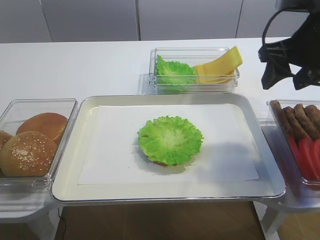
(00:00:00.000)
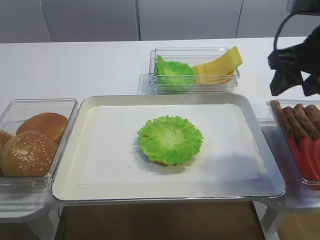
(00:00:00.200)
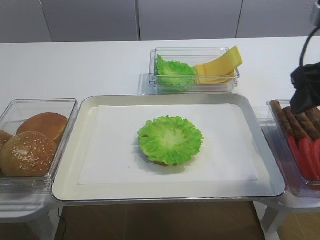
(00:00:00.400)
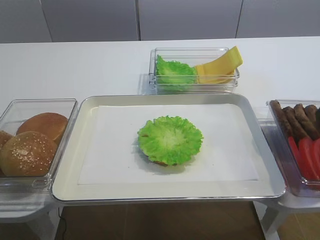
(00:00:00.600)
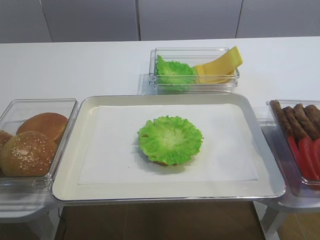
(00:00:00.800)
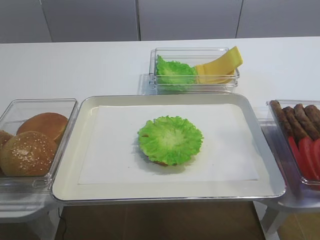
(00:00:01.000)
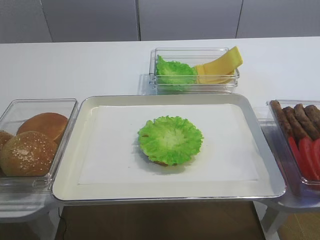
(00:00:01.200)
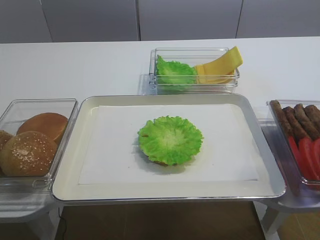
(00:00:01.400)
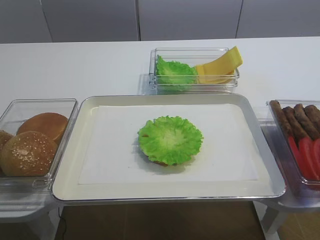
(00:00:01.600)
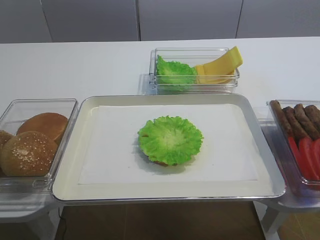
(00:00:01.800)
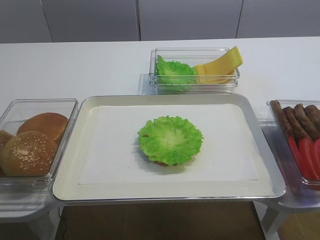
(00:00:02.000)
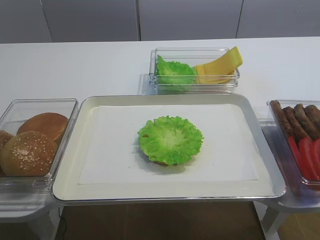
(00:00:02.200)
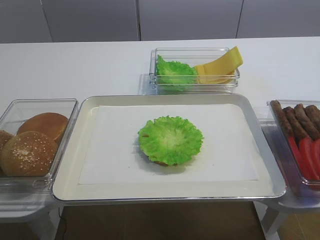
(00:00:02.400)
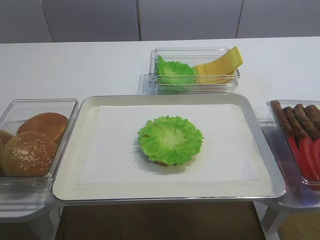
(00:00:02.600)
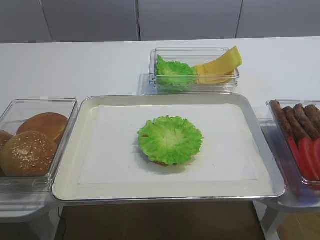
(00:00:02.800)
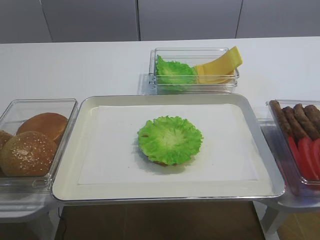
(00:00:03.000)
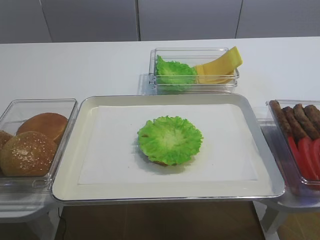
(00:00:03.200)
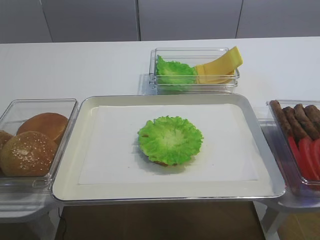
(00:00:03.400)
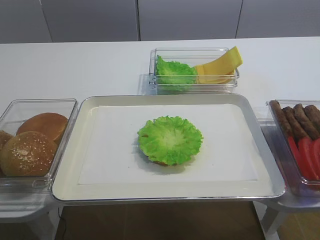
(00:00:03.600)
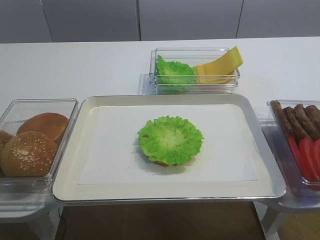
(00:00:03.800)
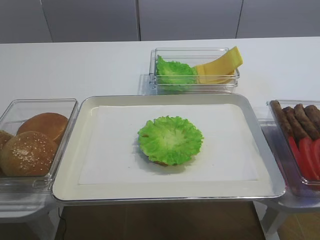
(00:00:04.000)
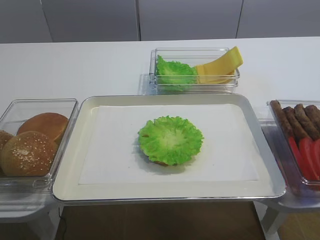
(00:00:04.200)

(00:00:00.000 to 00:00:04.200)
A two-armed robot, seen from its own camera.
00:00:00.000 - 00:00:01.400: The right gripper moves backward, about 25 cm.

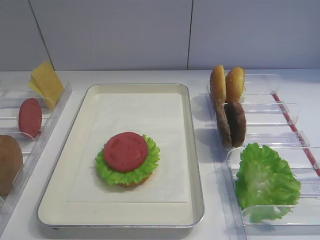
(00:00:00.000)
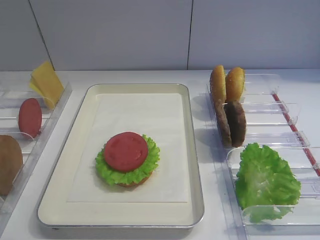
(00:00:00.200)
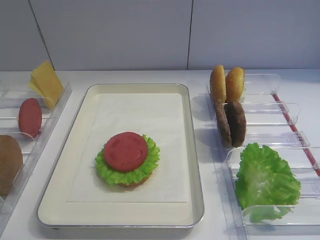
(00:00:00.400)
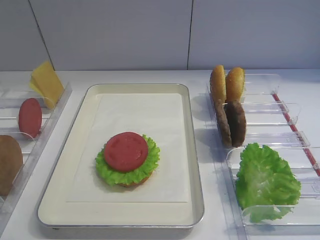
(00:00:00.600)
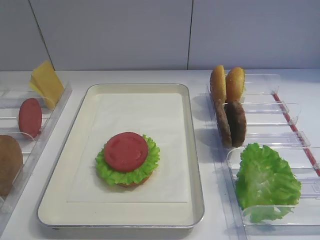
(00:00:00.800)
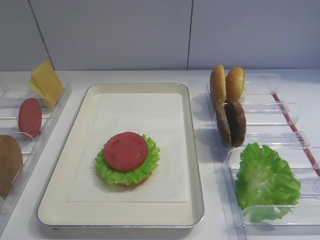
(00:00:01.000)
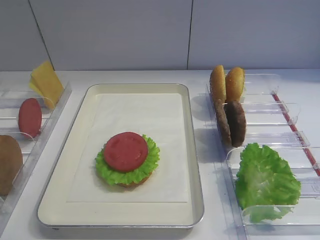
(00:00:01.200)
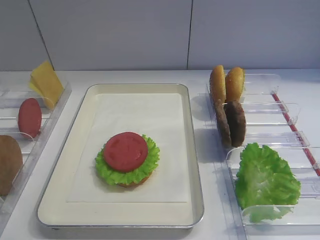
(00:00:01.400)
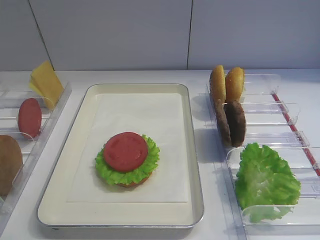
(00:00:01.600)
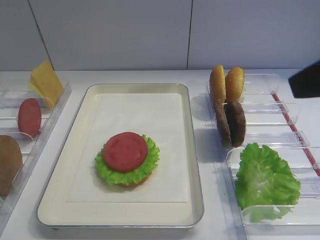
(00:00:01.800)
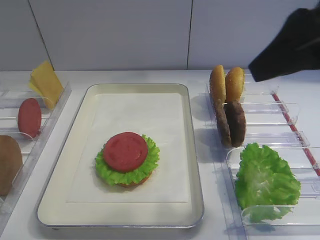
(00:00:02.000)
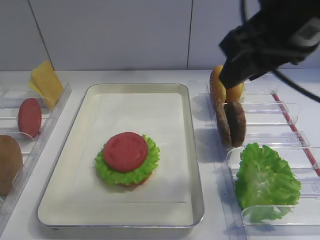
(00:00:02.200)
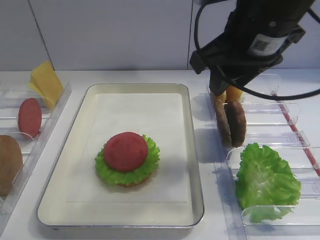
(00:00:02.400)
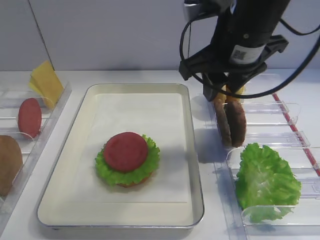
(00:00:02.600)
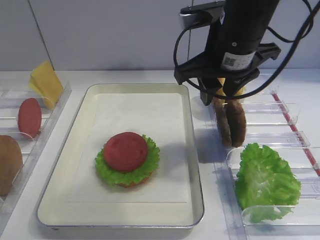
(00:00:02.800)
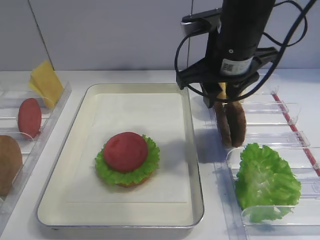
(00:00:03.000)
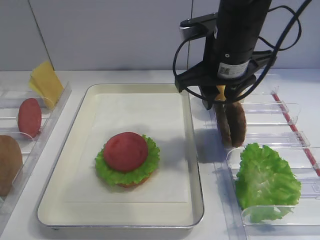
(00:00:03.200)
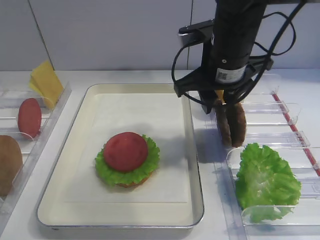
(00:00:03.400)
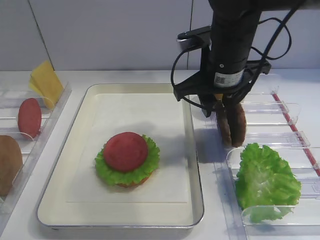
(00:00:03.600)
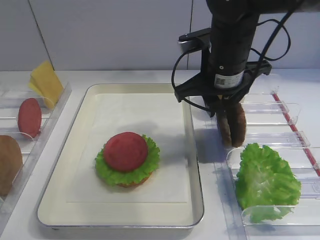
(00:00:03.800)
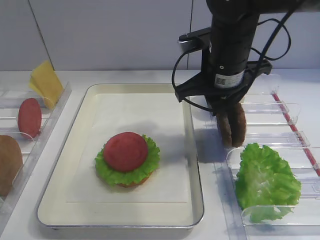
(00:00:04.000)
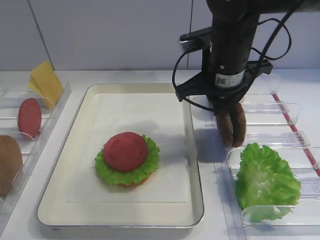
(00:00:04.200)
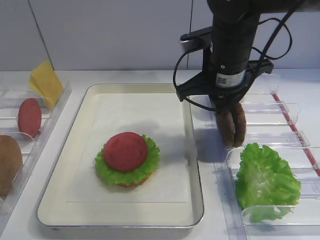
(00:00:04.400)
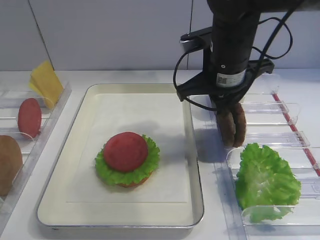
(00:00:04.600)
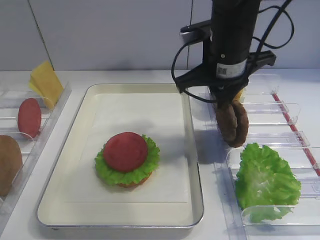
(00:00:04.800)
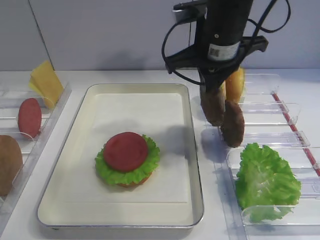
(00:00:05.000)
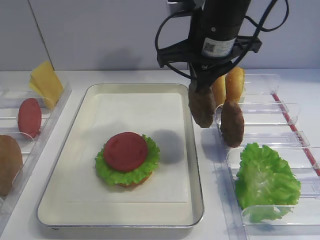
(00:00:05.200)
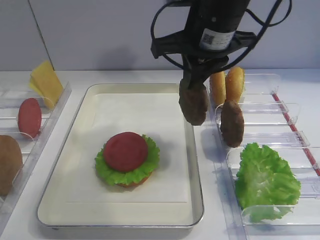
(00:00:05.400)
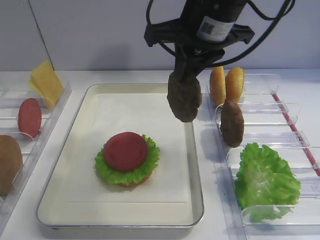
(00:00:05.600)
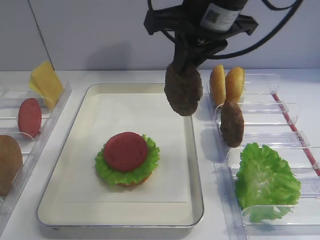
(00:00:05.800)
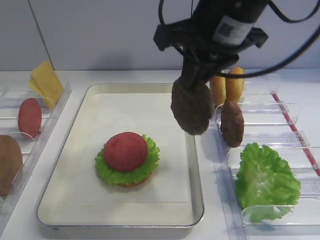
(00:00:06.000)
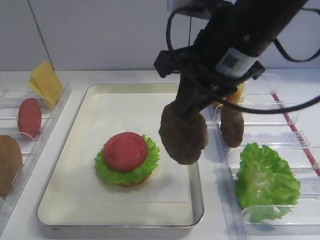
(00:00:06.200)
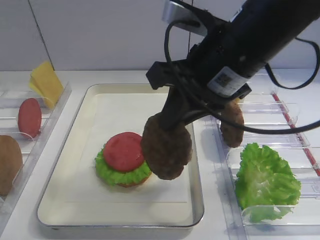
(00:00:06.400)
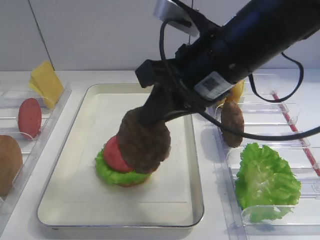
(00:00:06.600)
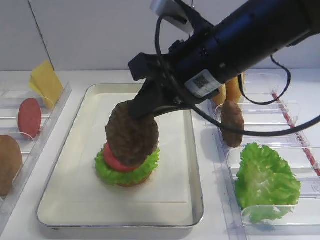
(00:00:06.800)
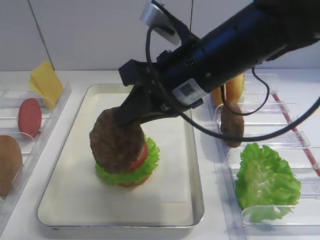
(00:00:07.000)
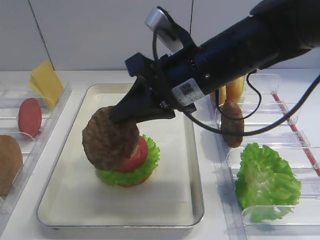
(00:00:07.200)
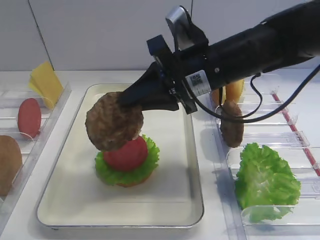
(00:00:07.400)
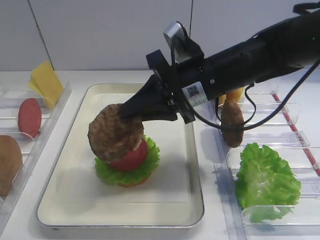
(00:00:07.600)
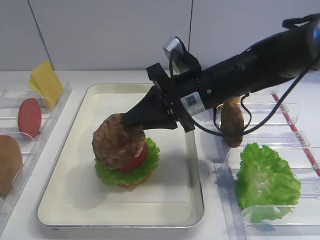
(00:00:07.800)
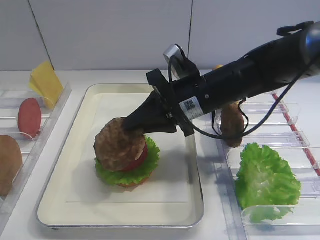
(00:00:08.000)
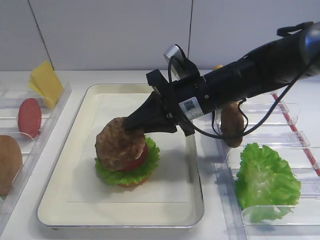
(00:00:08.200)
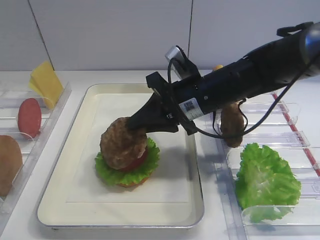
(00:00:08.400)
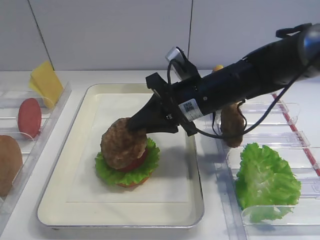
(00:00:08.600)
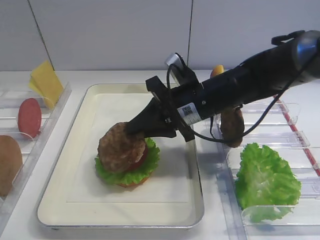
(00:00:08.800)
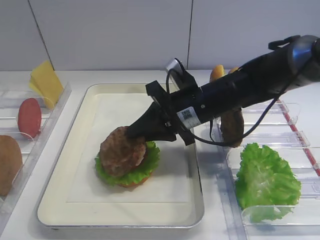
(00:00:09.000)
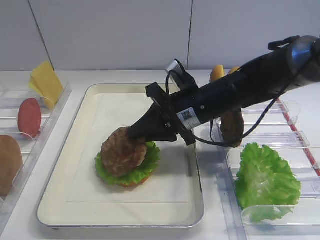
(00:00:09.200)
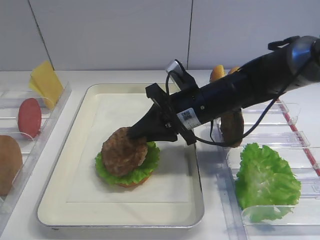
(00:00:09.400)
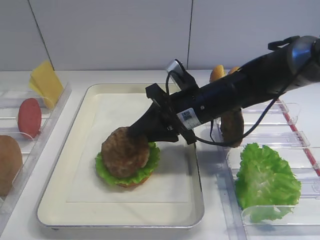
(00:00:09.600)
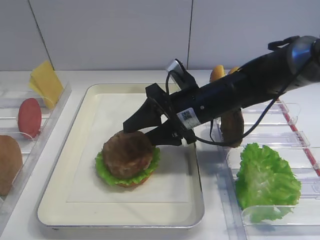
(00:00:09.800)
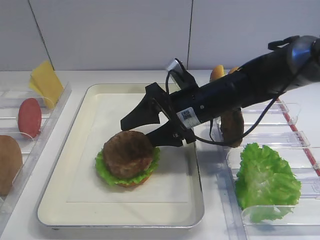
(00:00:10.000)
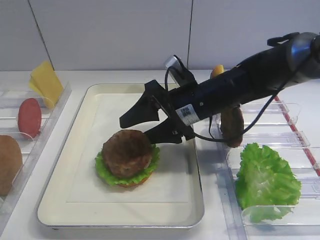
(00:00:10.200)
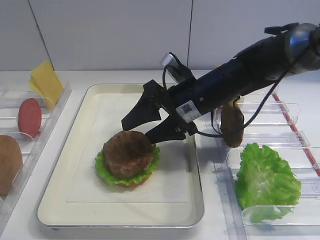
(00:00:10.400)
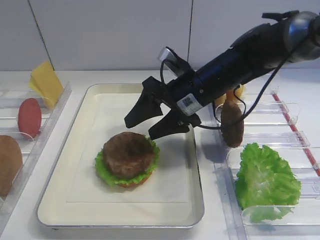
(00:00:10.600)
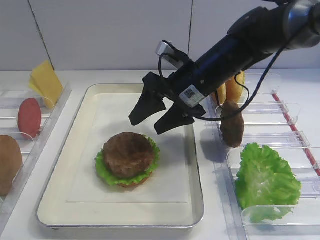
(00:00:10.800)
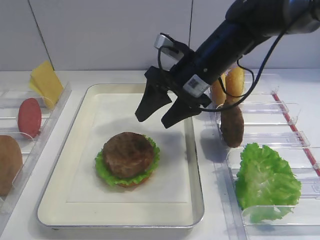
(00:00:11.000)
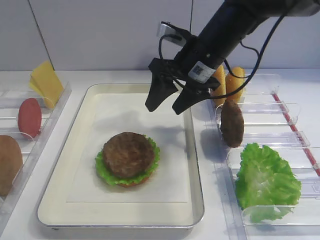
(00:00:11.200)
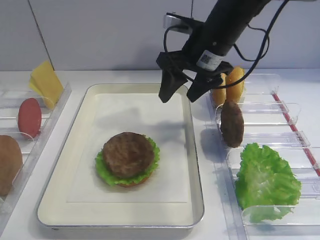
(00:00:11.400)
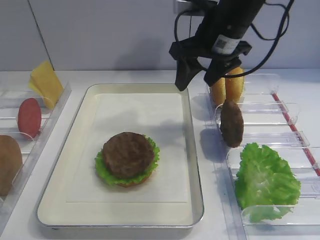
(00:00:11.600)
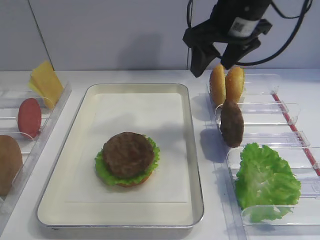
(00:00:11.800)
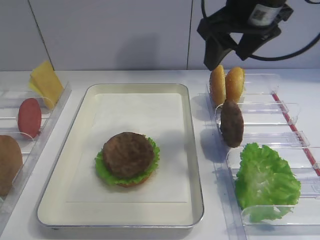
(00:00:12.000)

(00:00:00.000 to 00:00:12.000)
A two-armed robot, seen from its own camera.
Step, 00:00:00.000 - 00:00:04.800: Pick up the cutlet with the right gripper.
Step, 00:00:05.000 - 00:00:10.800: Place the cutlet on the tomato slice with the right gripper.
00:00:01.600 - 00:00:03.000: The right gripper heads forward and to the left, covering some 25 cm.
00:00:03.000 - 00:00:04.400: The right gripper closes.
00:00:04.400 - 00:00:06.000: The right gripper moves upward, approximately 10 cm.
00:00:06.000 - 00:00:07.600: The right gripper goes roughly 10 cm downward.
00:00:07.600 - 00:00:09.000: The right gripper is displaced downward by approximately 5 cm.
00:00:09.000 - 00:00:10.400: The right gripper opens its fingers.
00:00:10.400 - 00:00:12.000: The right gripper heads upward and to the right, covering approximately 15 cm.

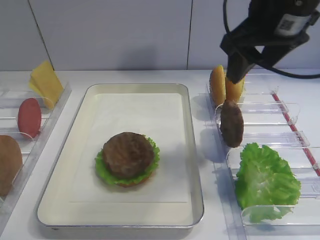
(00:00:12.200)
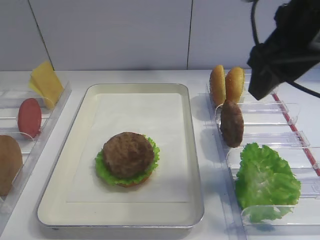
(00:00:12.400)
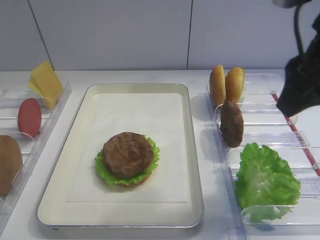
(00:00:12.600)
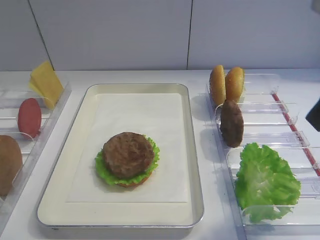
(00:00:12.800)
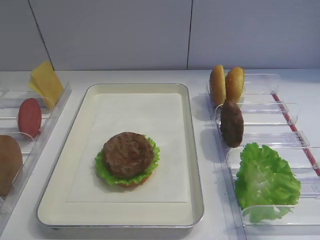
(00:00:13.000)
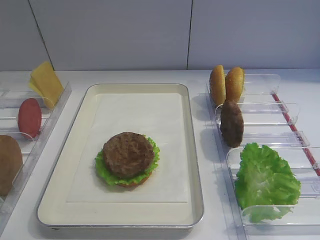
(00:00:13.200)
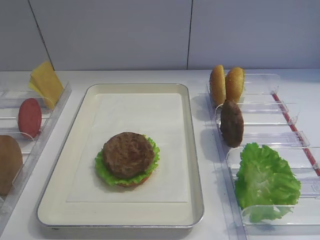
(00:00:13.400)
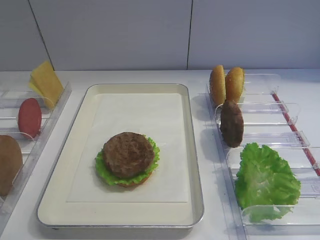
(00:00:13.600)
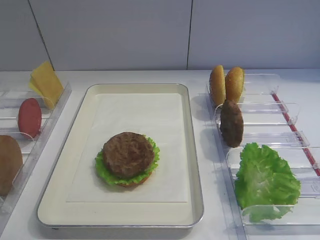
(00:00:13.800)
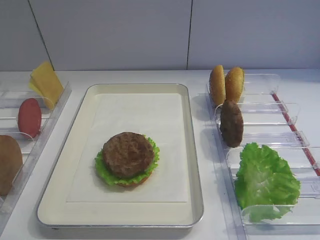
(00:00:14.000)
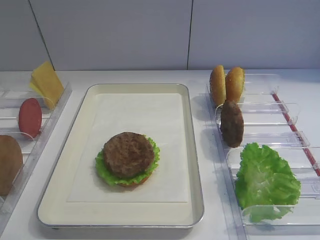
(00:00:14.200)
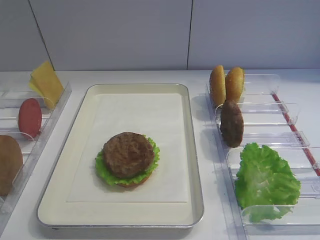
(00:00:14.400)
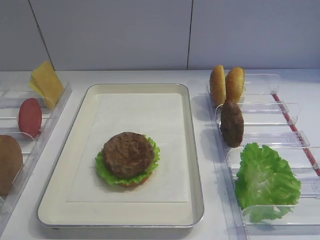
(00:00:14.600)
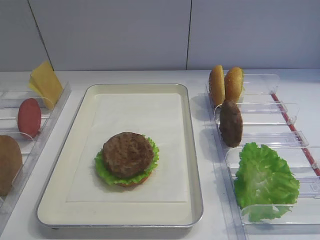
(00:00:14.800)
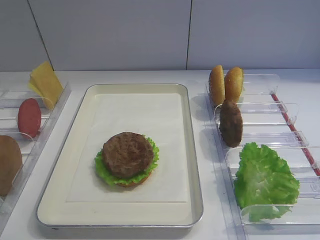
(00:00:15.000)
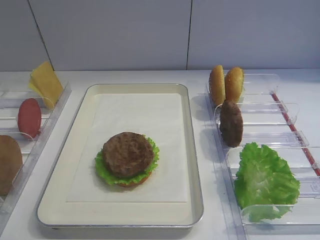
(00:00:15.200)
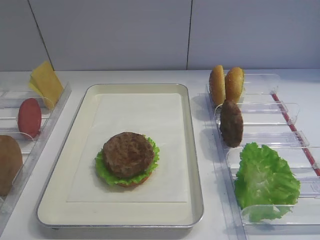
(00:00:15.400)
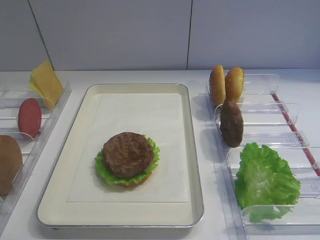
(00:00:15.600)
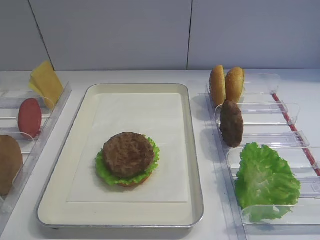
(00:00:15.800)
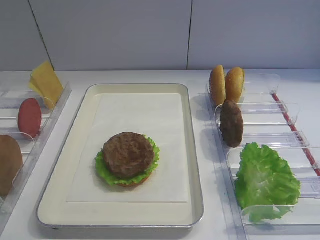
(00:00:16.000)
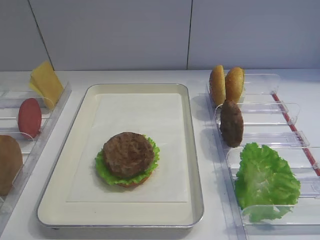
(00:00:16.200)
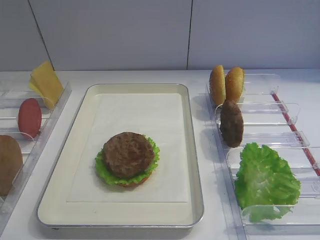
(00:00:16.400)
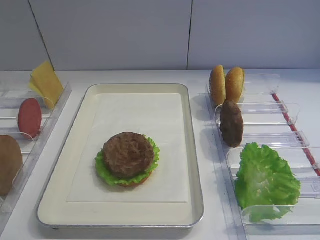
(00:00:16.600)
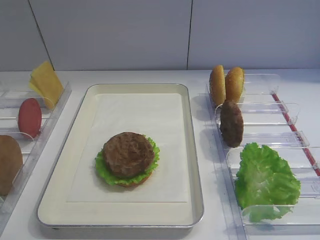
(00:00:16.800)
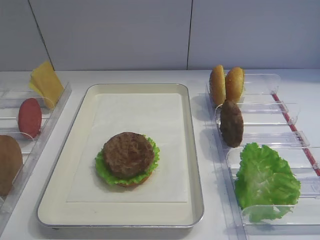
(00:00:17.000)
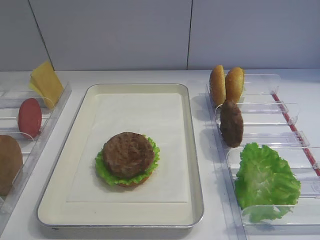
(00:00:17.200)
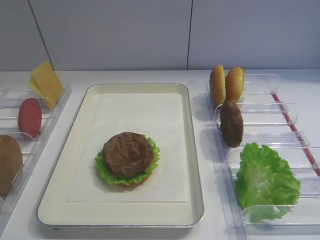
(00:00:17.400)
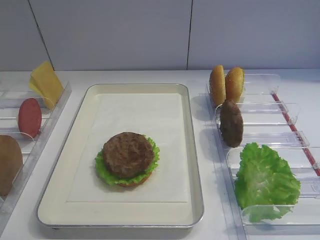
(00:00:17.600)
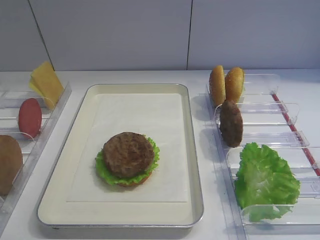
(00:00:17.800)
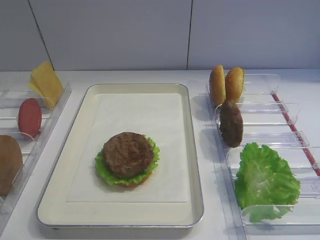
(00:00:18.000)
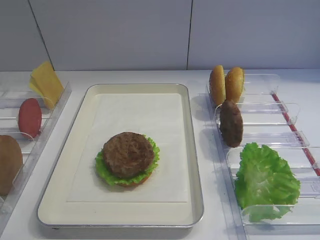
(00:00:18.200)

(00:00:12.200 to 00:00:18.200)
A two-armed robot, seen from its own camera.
00:00:12.200 - 00:00:13.800: The right gripper is displaced backward and to the right by about 30 cm.
